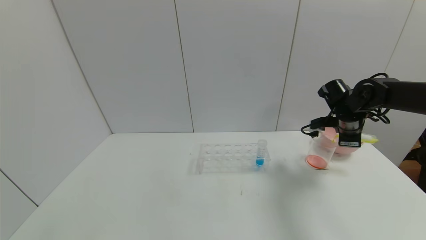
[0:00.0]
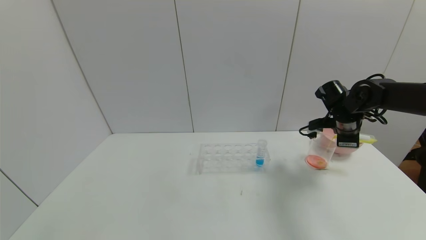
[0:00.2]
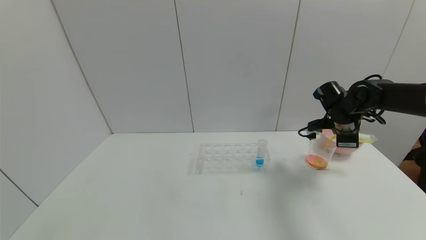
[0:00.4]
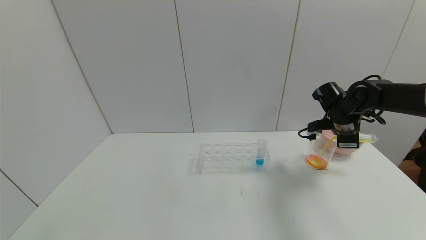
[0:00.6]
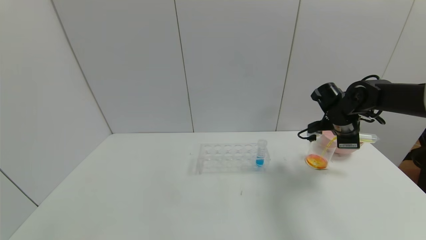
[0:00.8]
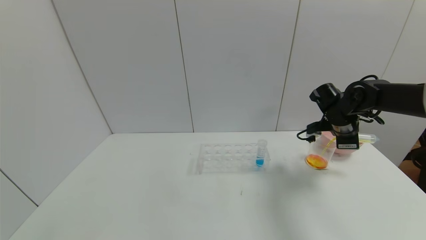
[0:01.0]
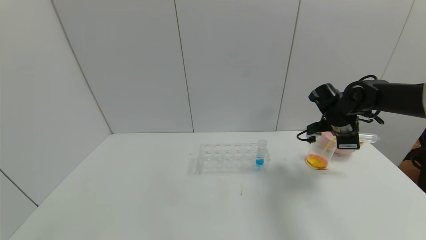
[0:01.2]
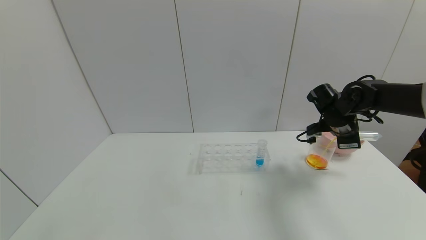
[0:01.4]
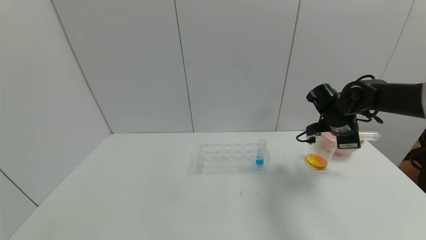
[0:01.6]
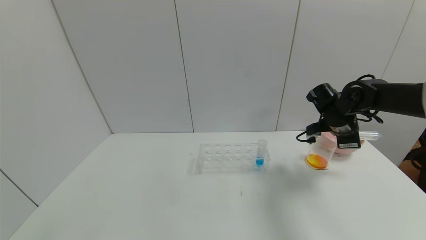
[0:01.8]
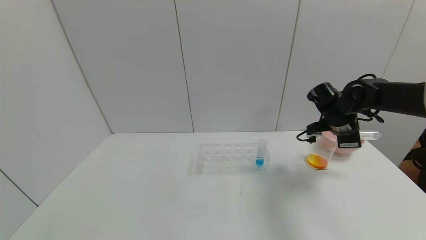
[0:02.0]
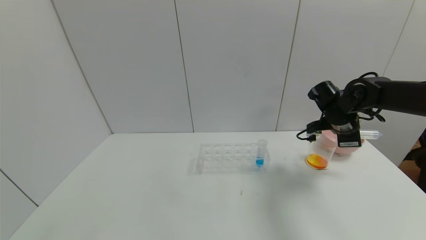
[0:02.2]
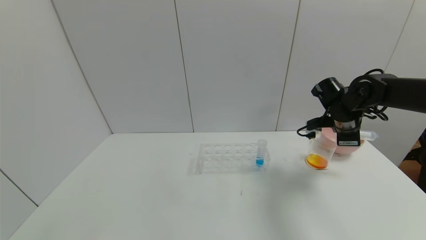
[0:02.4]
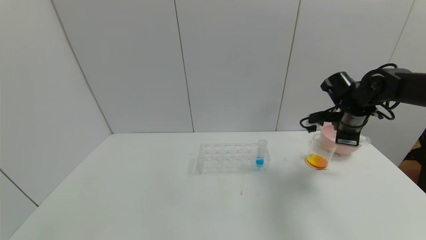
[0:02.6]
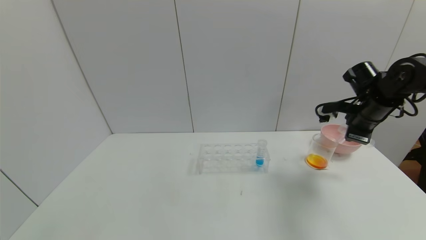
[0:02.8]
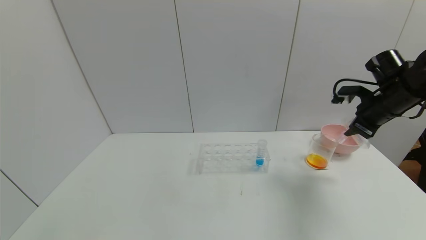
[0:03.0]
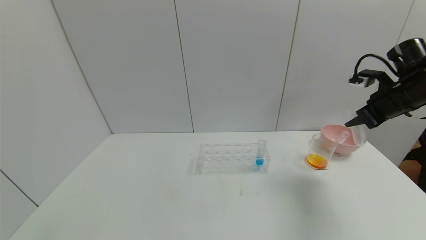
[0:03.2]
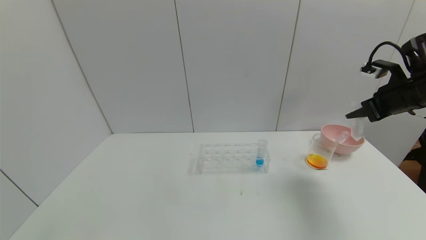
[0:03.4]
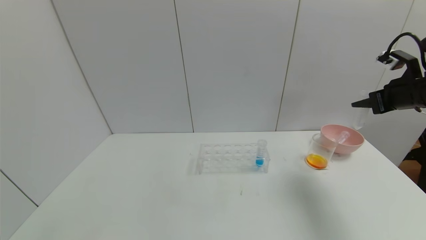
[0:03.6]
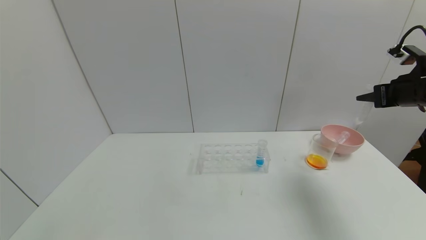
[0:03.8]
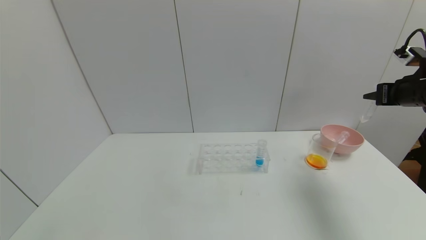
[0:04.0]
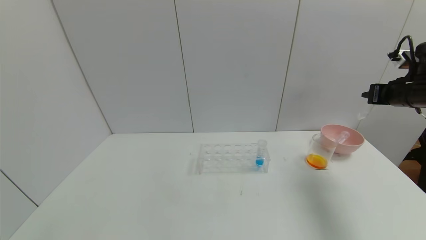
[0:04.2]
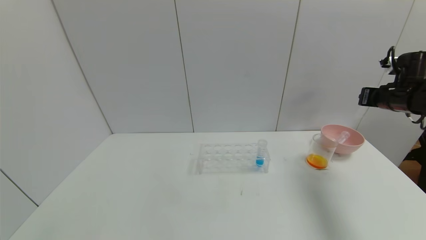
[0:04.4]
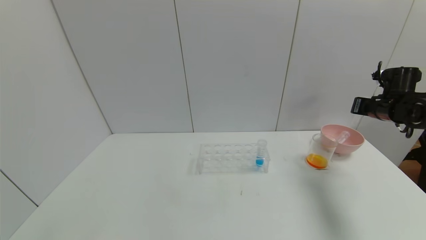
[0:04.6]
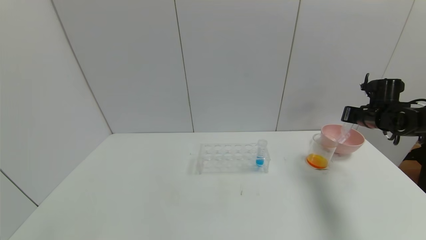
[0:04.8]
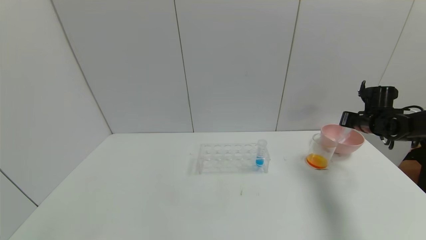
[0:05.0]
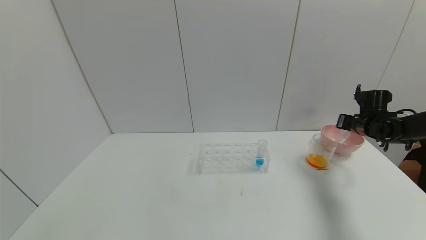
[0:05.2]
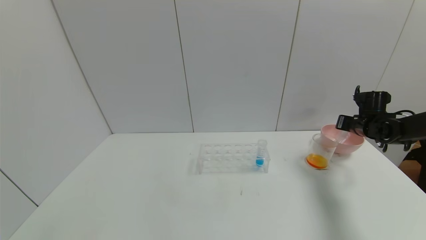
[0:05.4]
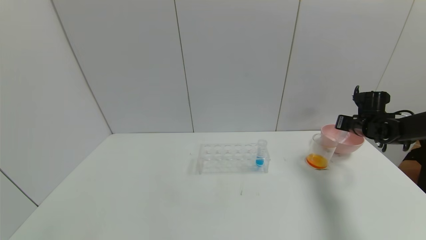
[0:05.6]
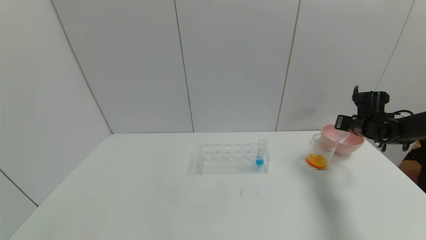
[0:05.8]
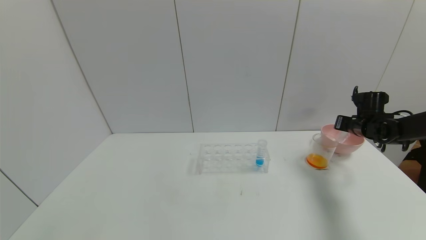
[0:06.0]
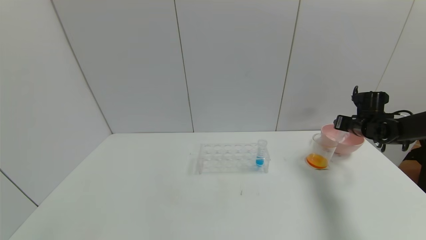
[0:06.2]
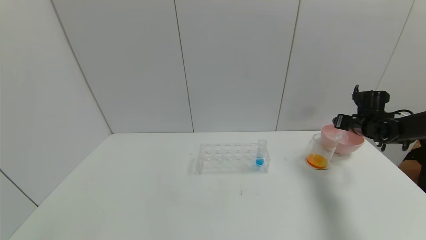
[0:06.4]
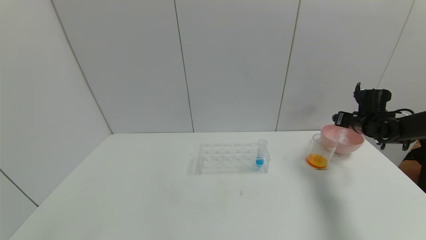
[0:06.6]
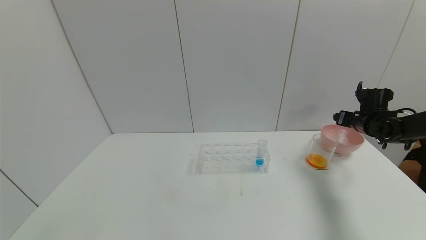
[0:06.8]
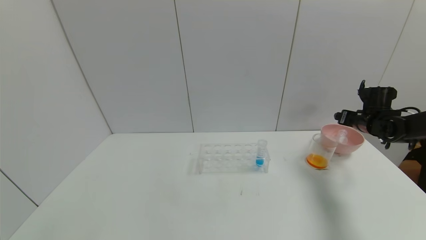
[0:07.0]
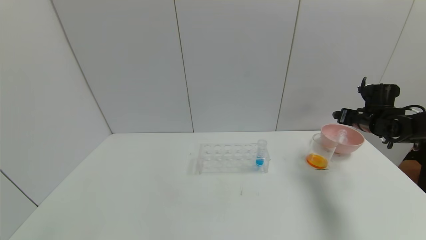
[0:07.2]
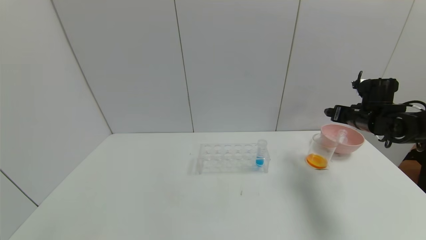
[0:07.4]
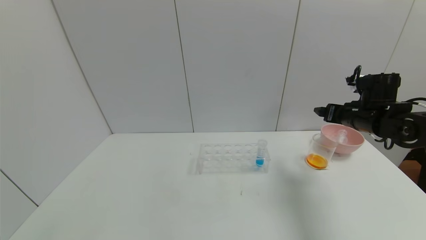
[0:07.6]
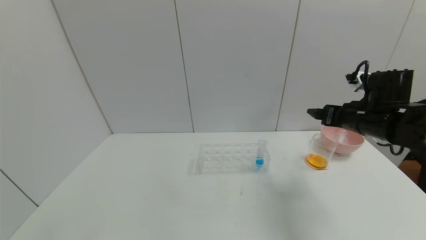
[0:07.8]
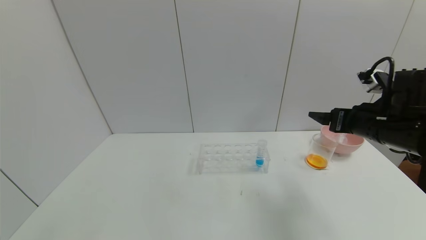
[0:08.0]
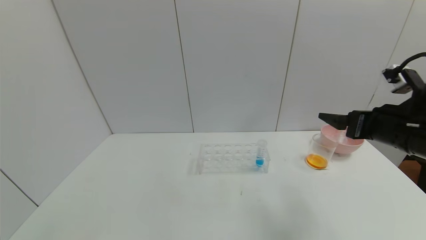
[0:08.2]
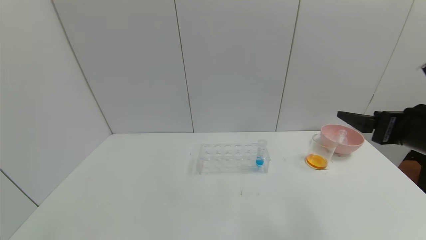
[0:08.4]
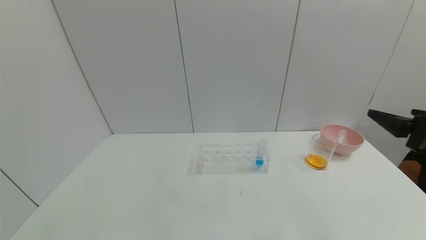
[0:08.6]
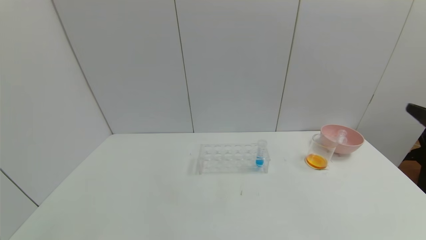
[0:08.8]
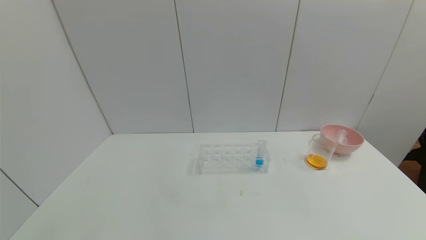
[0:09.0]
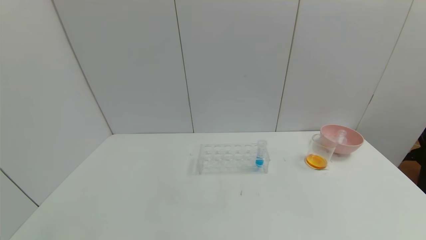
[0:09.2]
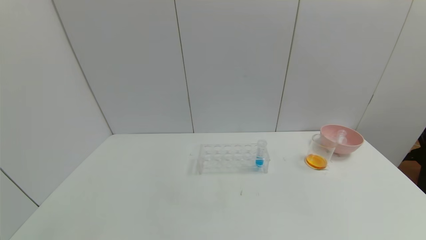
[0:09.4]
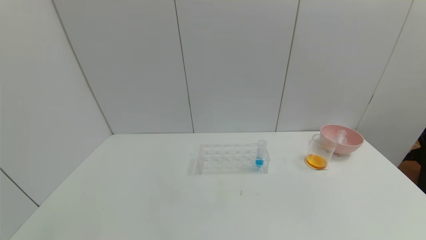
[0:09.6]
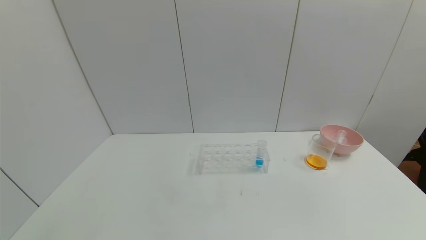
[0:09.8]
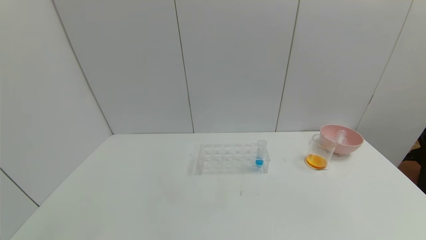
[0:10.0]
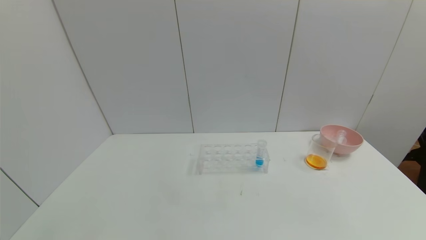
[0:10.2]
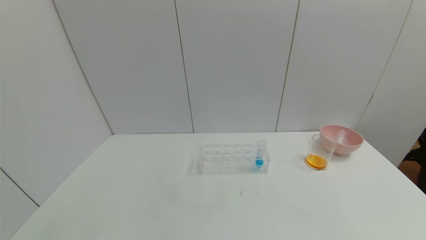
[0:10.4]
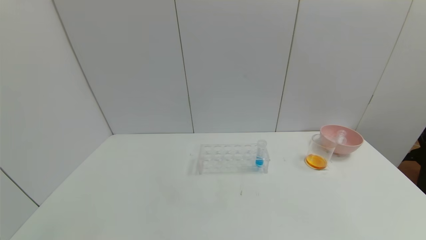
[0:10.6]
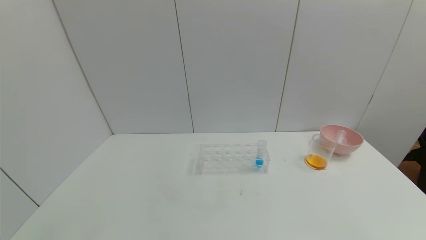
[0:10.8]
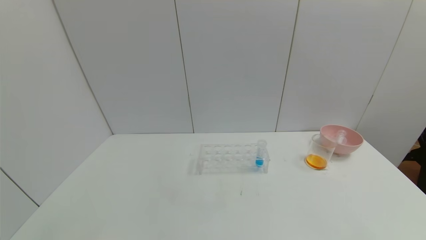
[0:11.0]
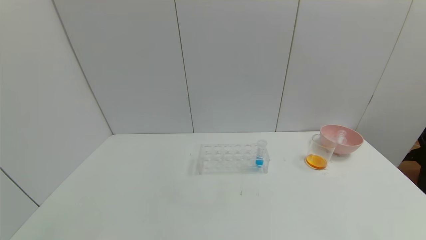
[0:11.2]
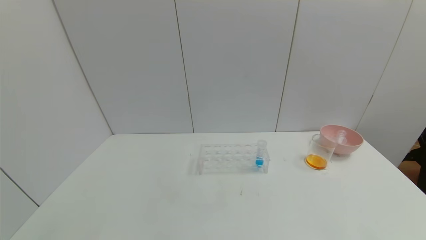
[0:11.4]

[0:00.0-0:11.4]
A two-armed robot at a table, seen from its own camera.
Task of the whole recording: pick up the test tube with yellow pigment and the test tube with red pigment by grippers and pour them into the beaker.
Step, 0:00.0 to 0:03.6: Pour the yellow reagent into the graduated cylinder with right gripper.
Step, 0:03.8 to 0:08.2: Place the test tube into the bowl with right gripper.
0:00.0 to 0:01.4: The grippers stay close to where they were, moving slightly.
0:01.4 to 0:02.8: The right gripper shifts by some 5 cm.
0:02.8 to 0:04.2: The right gripper travels to the right by about 5 cm.
0:04.2 to 0:05.6: The right gripper travels downward and forward by about 15 cm.
0:05.6 to 0:07.2: The right gripper opens.
0:07.2 to 0:08.6: The right gripper goes about 25 cm backward.
0:08.6 to 0:10.0: The right gripper heads backward, covering roughly 25 cm.
